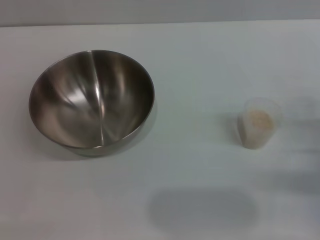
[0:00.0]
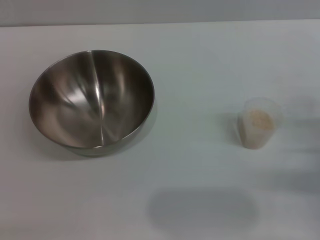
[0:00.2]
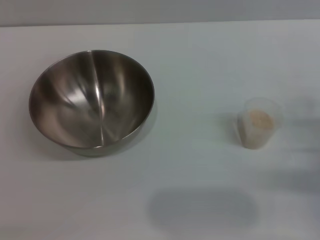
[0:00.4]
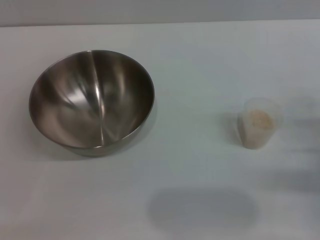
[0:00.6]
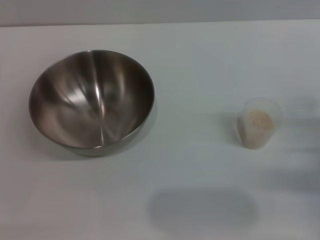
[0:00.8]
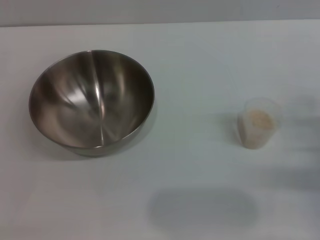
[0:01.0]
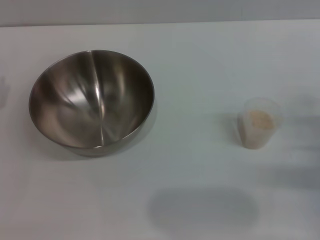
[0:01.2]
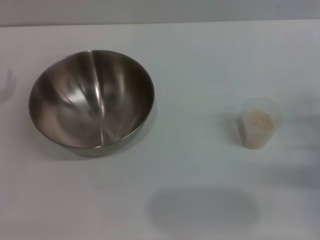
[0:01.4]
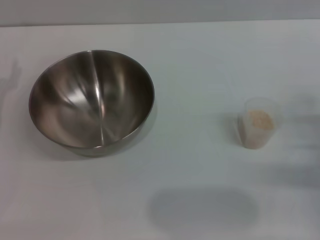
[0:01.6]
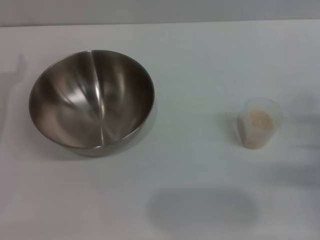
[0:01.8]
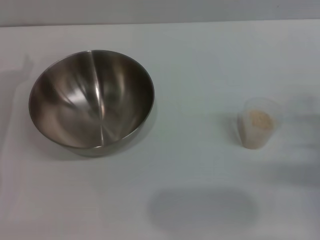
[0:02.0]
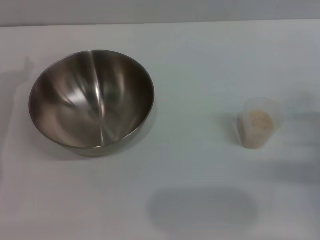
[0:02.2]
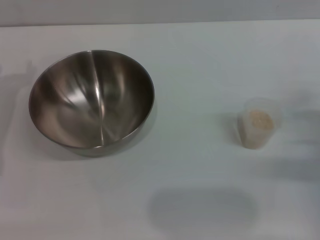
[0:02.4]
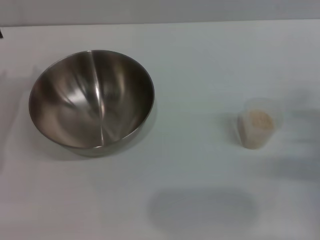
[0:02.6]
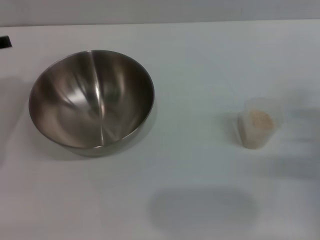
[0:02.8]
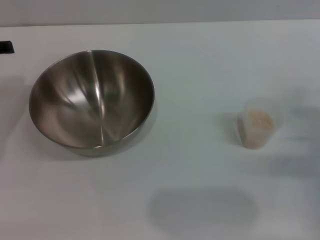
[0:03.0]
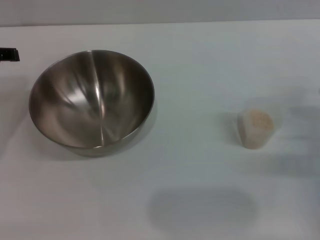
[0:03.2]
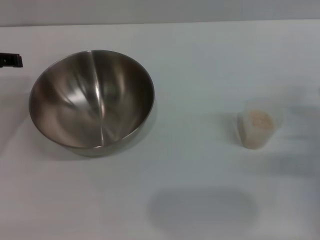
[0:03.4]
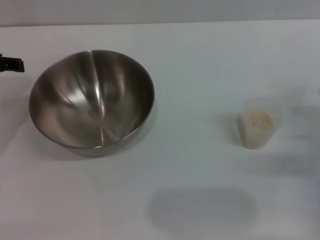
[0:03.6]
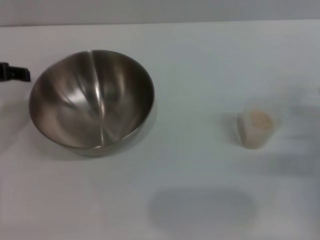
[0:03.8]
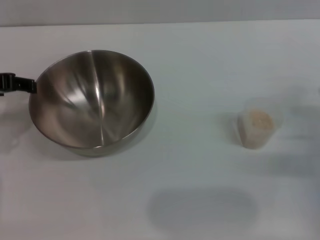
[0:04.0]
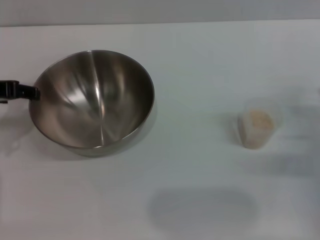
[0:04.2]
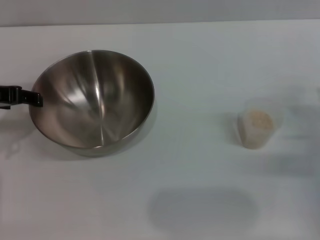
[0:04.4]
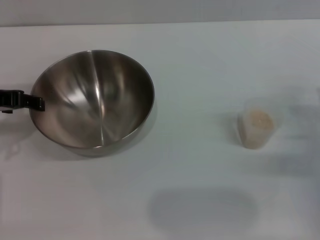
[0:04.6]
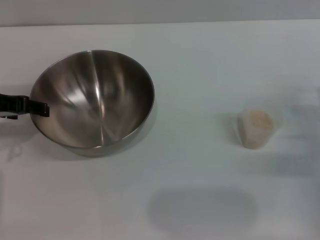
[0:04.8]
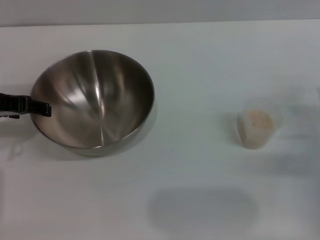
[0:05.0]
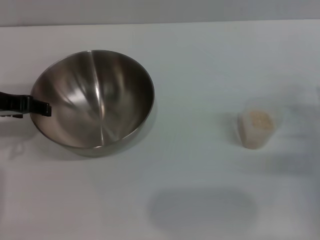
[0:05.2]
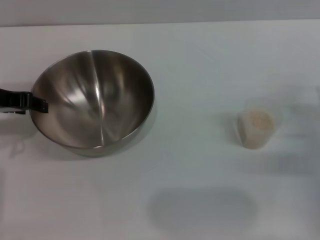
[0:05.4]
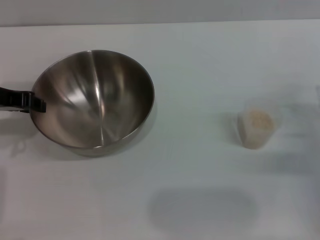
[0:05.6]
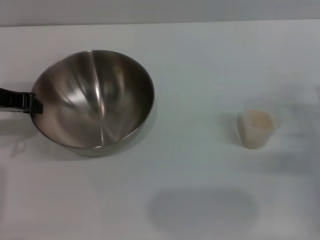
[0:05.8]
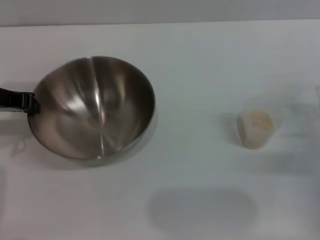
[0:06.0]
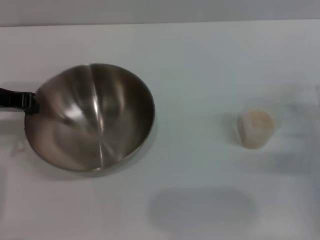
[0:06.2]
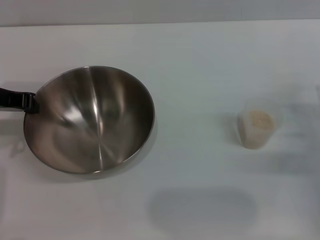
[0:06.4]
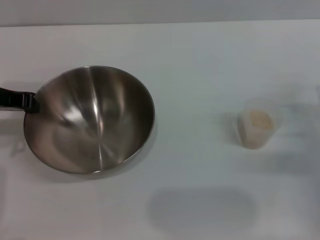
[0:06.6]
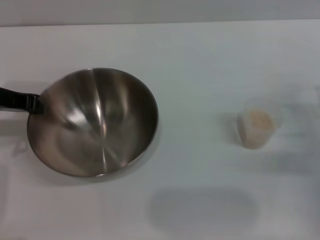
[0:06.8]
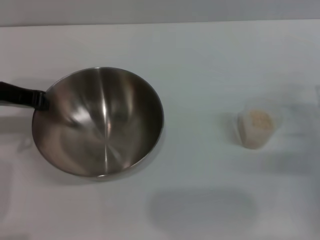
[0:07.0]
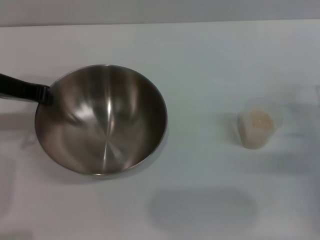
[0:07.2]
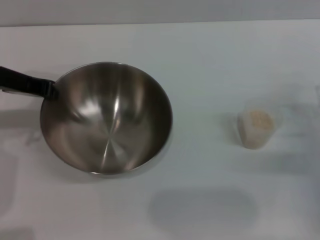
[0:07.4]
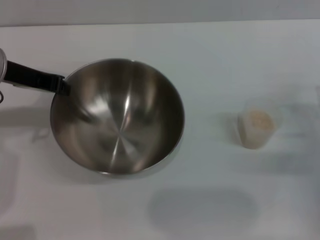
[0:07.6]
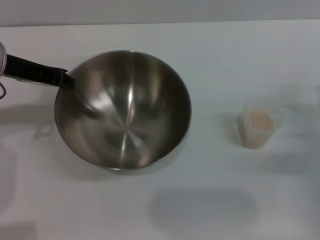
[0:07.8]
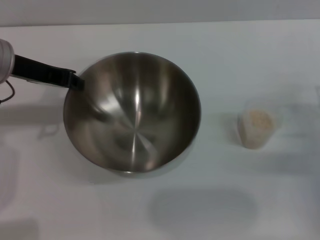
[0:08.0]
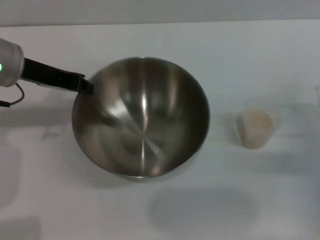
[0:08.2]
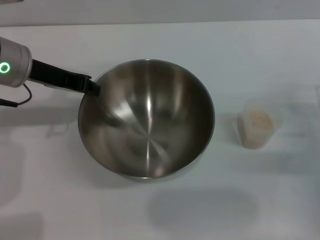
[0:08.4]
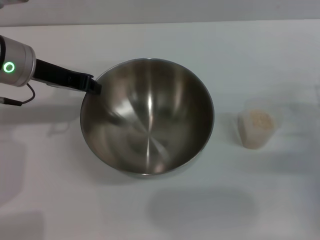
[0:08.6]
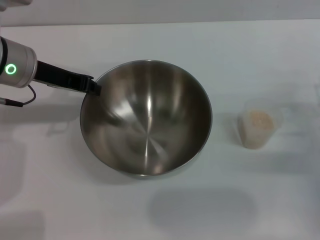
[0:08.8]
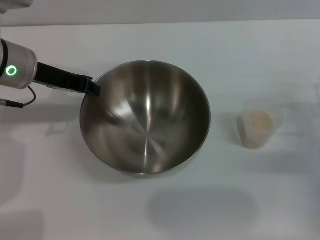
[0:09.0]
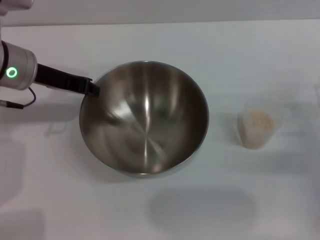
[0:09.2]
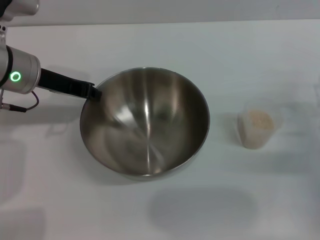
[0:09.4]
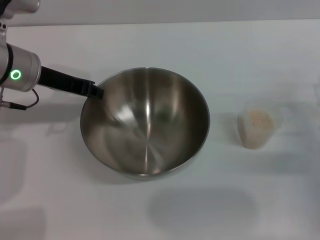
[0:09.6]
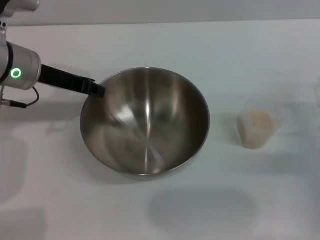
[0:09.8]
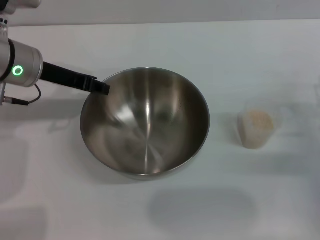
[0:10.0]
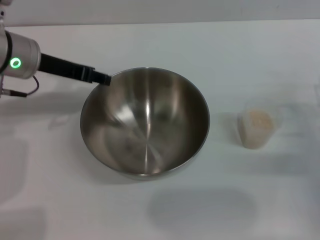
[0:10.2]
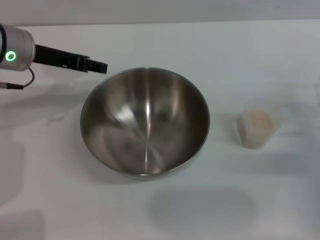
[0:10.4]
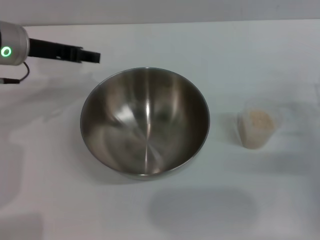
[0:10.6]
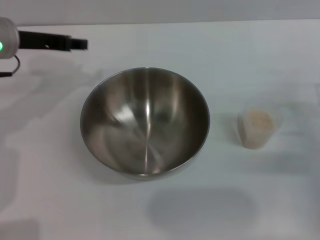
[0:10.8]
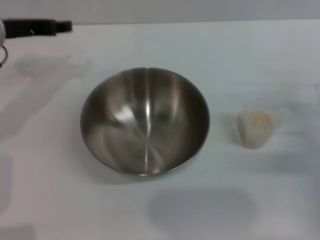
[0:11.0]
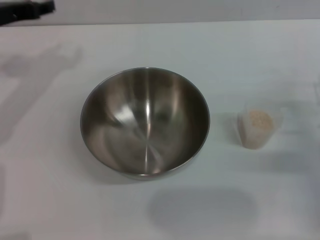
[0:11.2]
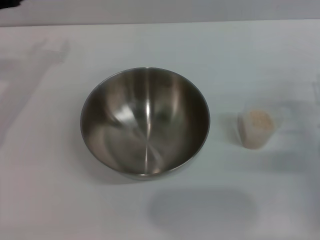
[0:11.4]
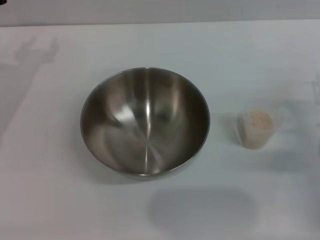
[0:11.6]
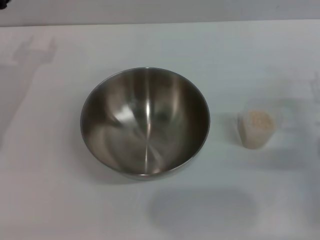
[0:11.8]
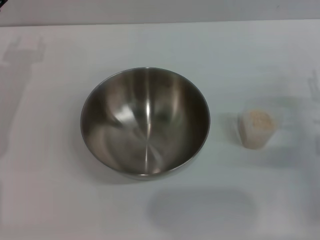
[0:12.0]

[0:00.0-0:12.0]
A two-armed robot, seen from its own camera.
Task of the whole recording: Place the bowl in the middle of the table with one hand and pour the rice from the grain cup into it with the other hand.
Step, 0:00.0 to 0:07.6: Pick up the bowl with the left gripper.
Step, 0:07.8 to 0:10.4: Place the bowl in the center of view with the left gripper.
0:03.0 to 0:04.4: The grippers move only a little.
0:04.4 to 0:06.0: The left gripper closes up.
0:06.0 to 0:07.6: The grippers move only a little.
0:07.6 to 0:09.0: The grippers move only a little.
0:09.0 to 0:10.4: The left gripper opens up.
0:10.4 to 0:12.0: The left gripper shifts about 10 cm to the left.

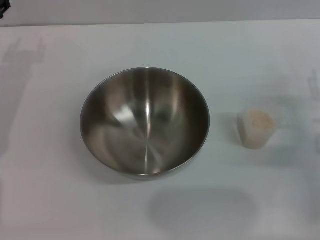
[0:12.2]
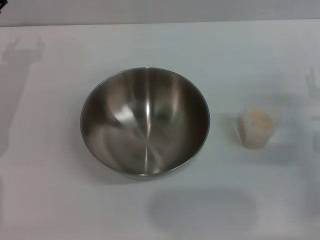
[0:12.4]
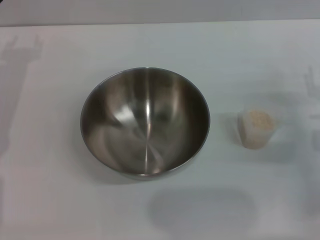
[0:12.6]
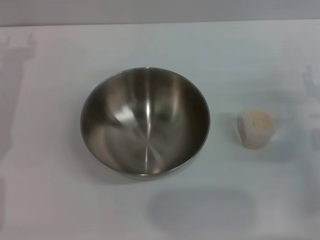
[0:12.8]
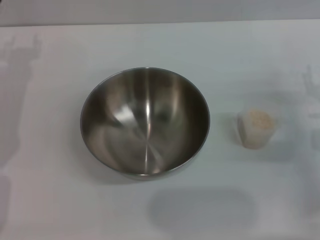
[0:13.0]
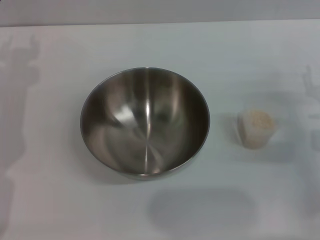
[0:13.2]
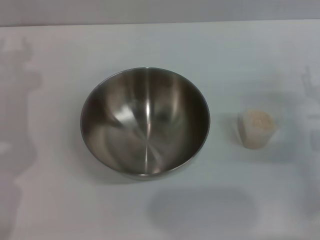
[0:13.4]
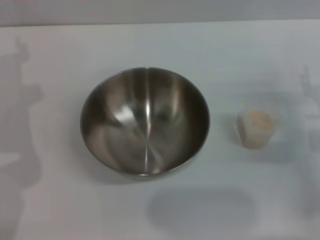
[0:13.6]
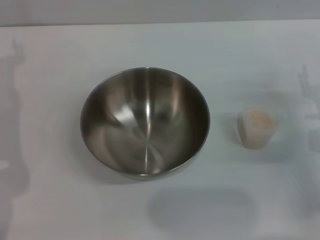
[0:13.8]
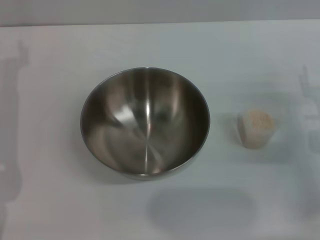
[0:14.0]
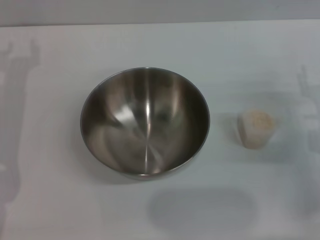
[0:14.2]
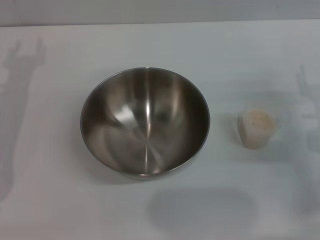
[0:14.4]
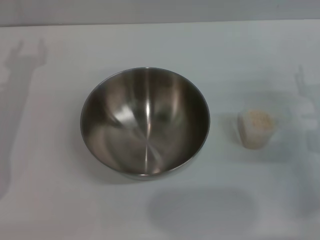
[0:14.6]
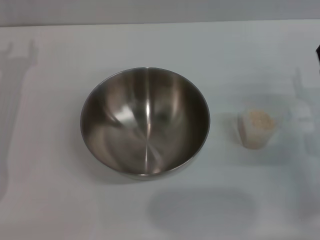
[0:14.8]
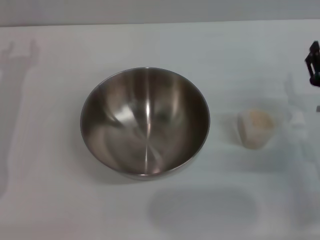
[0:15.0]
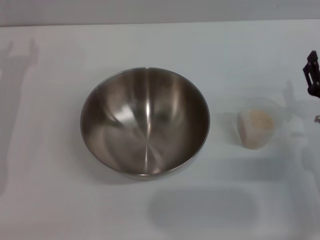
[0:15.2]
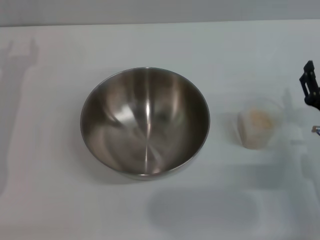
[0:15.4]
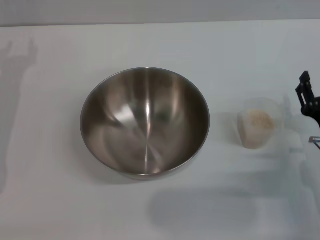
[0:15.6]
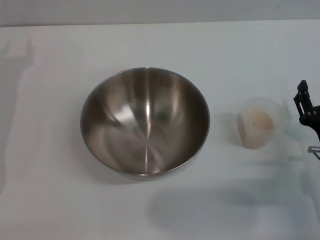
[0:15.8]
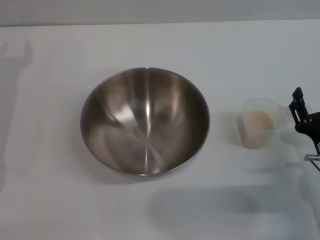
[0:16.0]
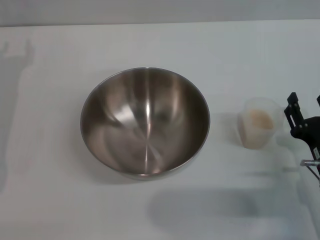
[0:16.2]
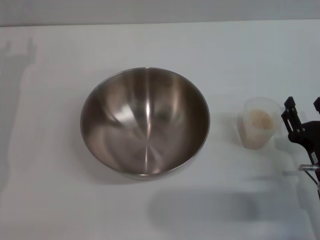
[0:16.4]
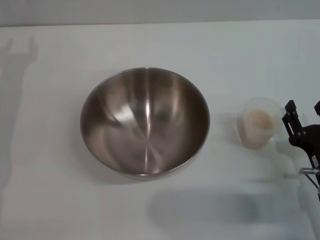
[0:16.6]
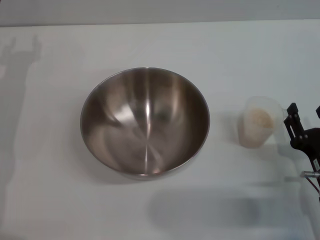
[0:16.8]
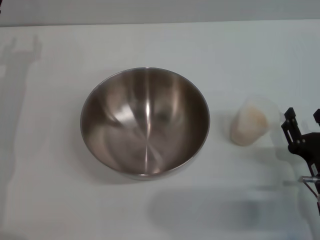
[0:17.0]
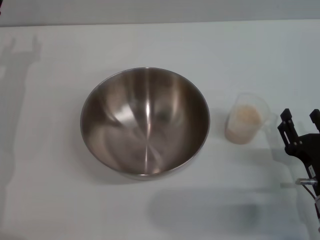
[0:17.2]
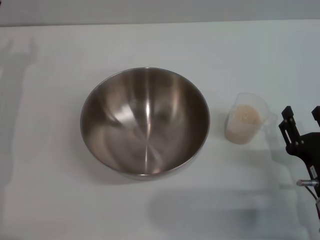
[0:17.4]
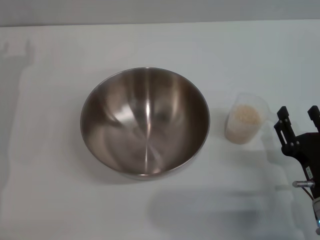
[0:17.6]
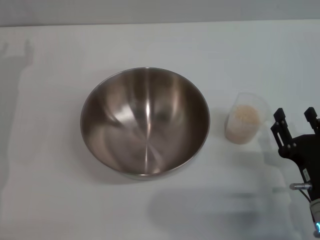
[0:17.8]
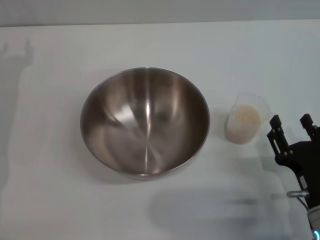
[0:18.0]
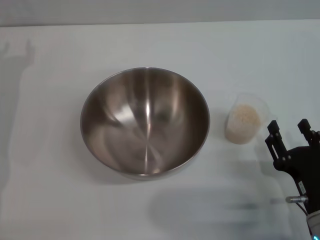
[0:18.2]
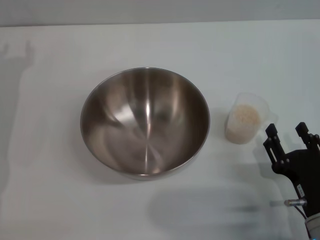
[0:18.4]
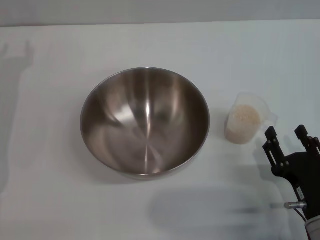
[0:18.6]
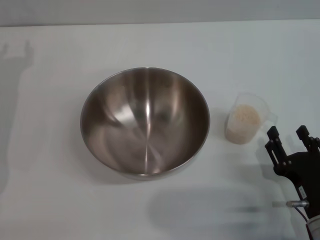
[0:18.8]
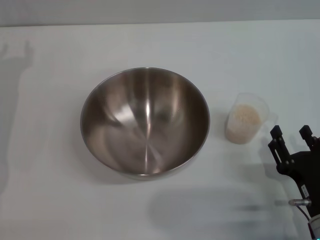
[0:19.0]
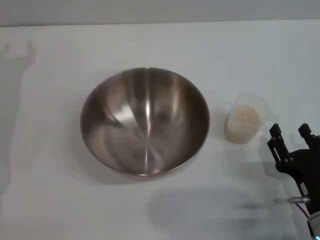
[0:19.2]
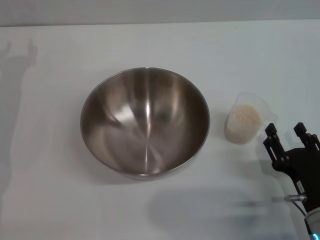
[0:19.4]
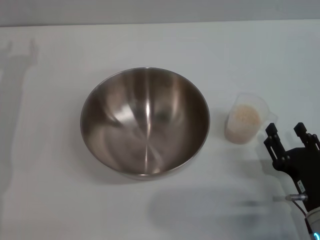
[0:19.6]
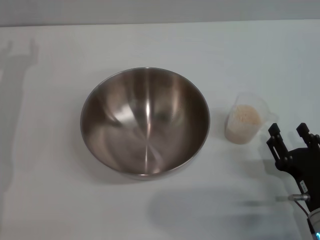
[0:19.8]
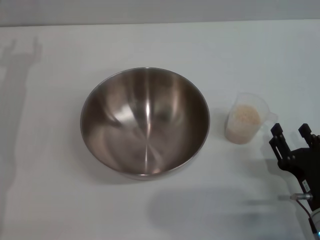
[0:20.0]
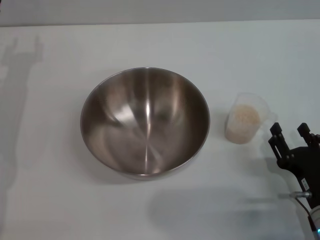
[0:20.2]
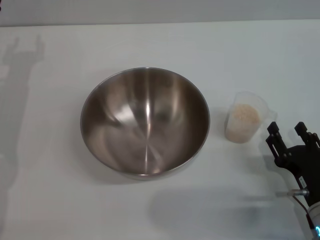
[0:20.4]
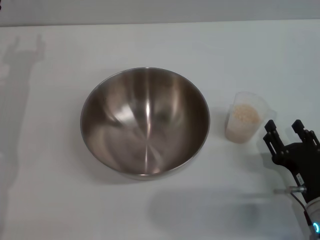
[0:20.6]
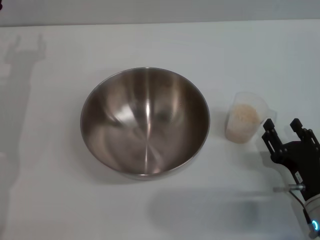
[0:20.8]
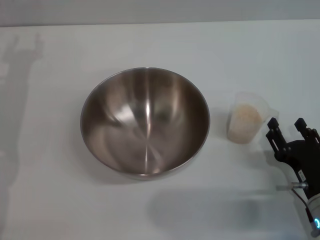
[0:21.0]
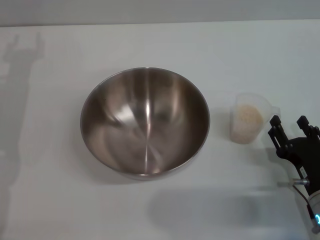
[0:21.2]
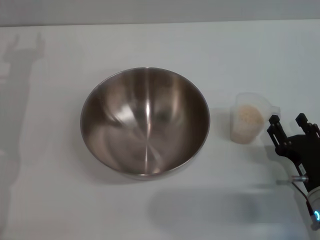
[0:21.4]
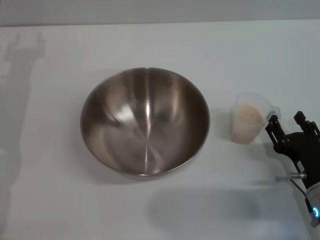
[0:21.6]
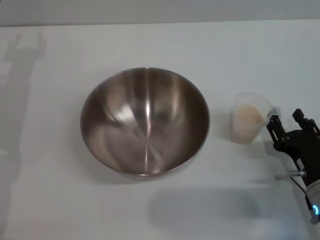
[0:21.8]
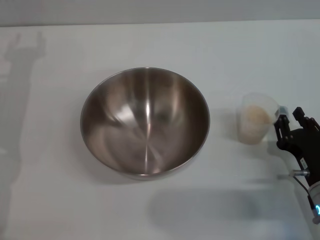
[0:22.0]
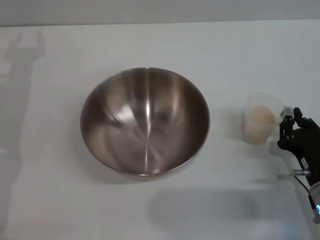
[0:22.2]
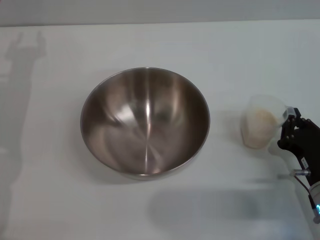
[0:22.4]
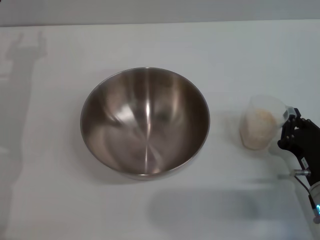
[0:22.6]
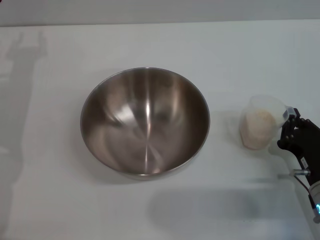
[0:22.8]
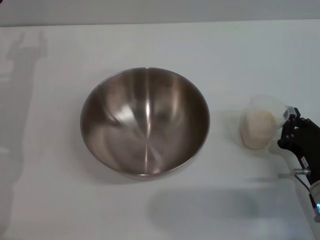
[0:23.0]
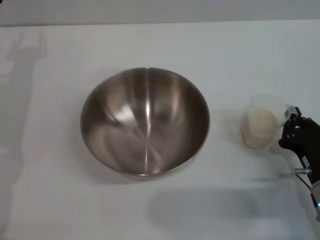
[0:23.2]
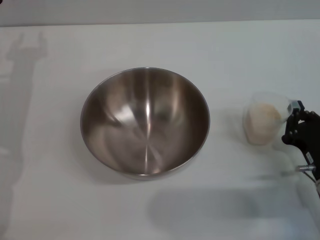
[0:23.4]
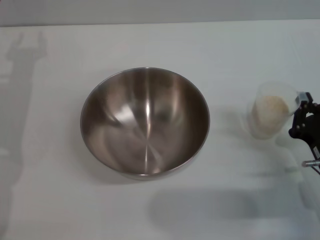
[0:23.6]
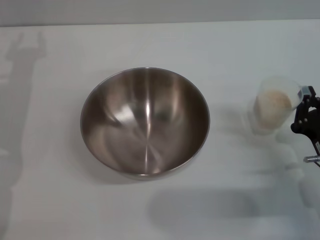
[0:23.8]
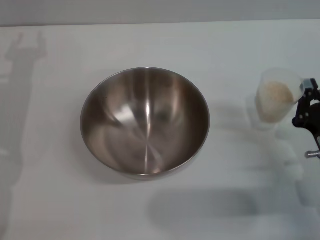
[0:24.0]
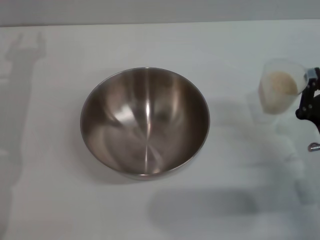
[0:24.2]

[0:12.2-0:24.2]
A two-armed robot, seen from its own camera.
Task of the whole recording: Place the bowl in the middle of the table with one hand and pour the rice from the grain cup into it with the other hand.
0:15.2 to 0:16.6: The right gripper heads backward, covering about 5 cm.
0:16.6 to 0:18.2: The grippers stay close to where they were, moving slightly.
0:18.2 to 0:19.8: Both grippers stay about where they are.
0:19.8 to 0:21.2: There are only small adjustments of the grippers.
0:21.2 to 0:22.6: The right gripper closes.
